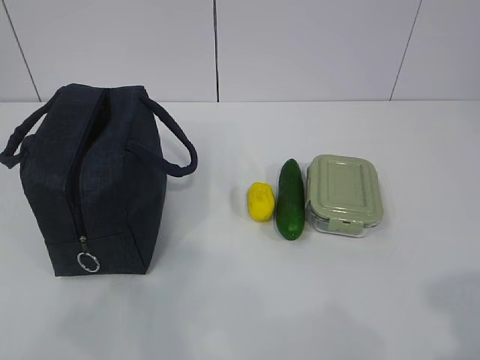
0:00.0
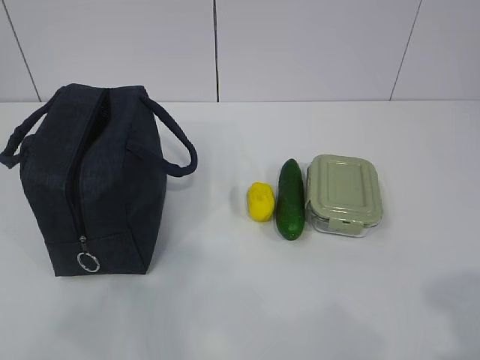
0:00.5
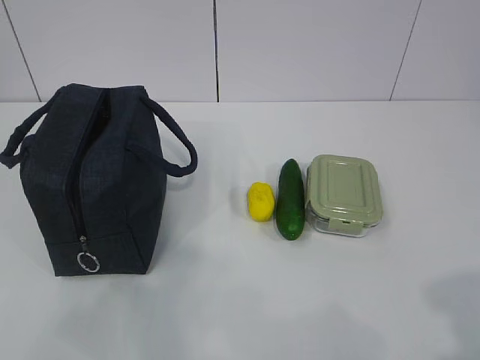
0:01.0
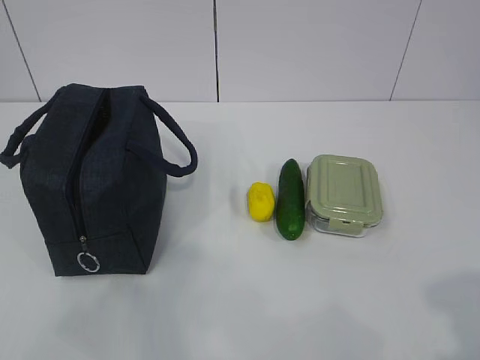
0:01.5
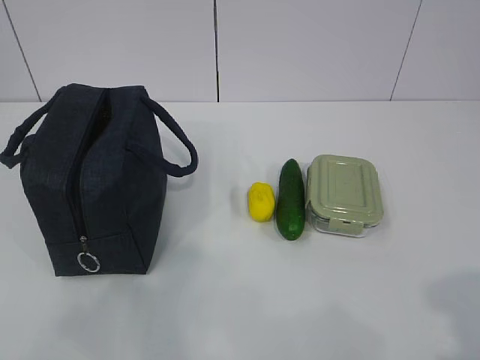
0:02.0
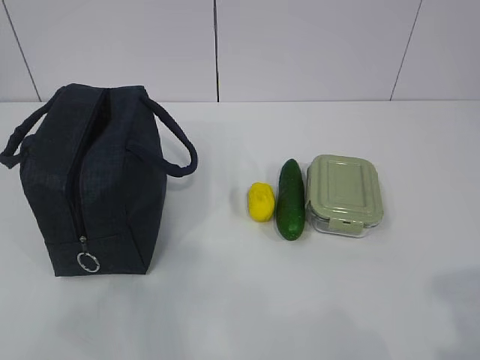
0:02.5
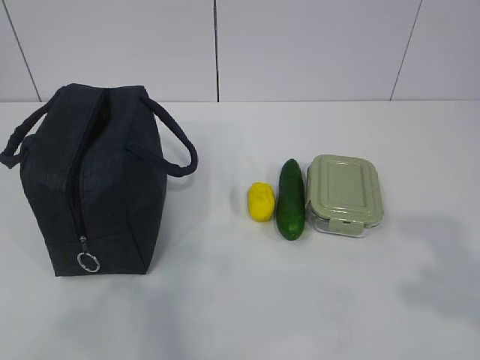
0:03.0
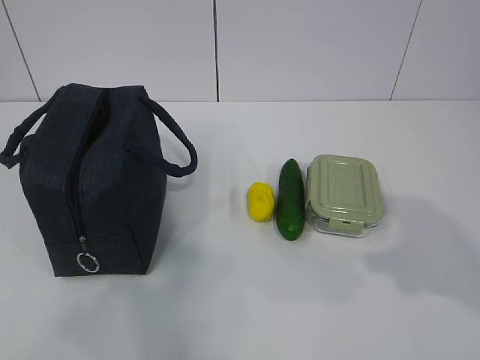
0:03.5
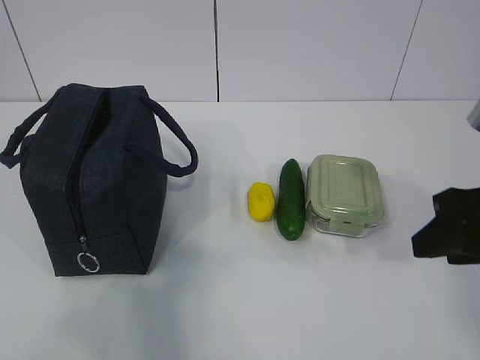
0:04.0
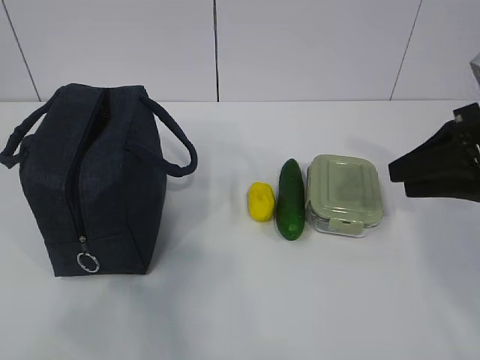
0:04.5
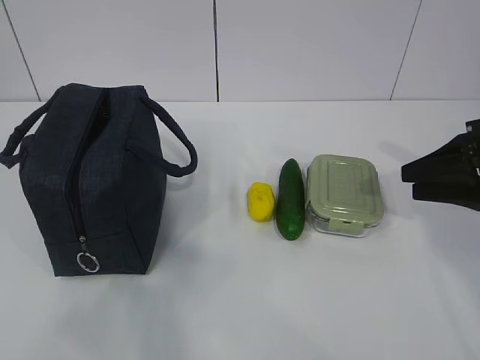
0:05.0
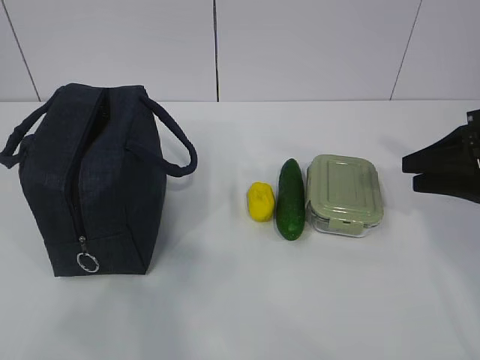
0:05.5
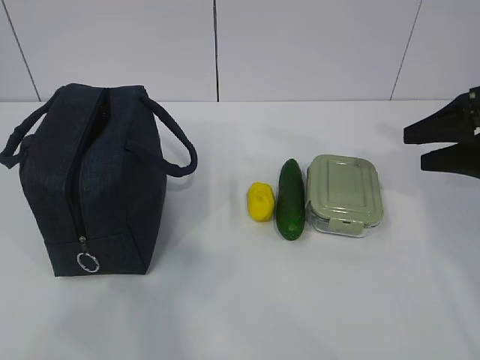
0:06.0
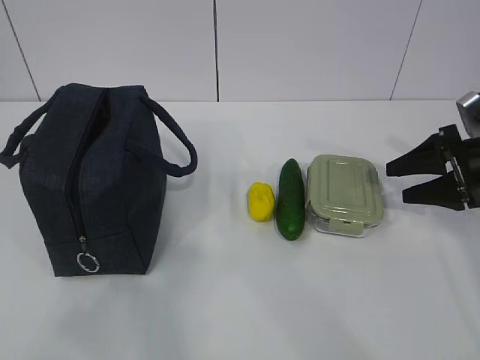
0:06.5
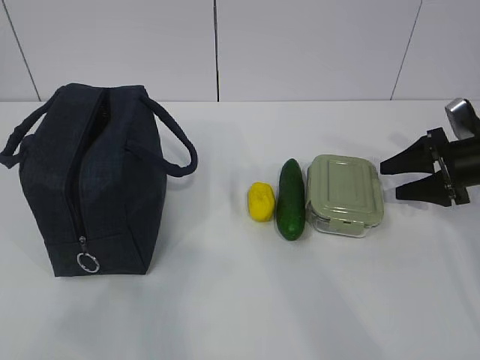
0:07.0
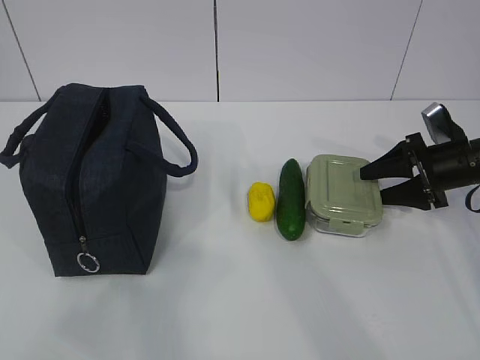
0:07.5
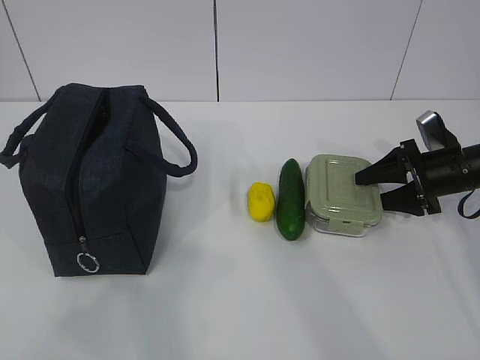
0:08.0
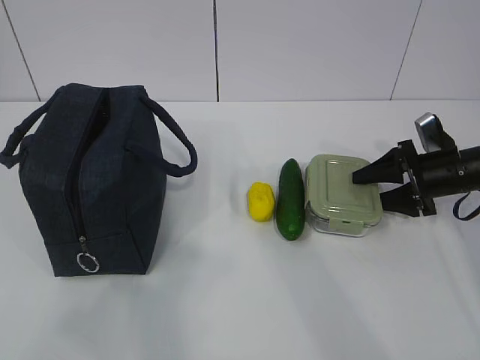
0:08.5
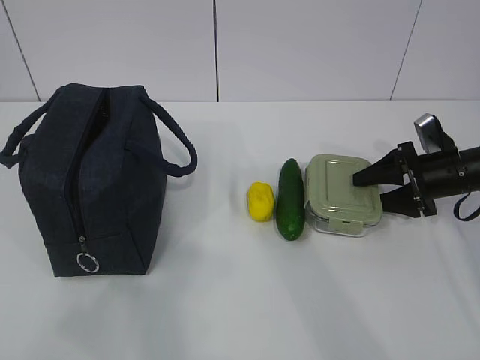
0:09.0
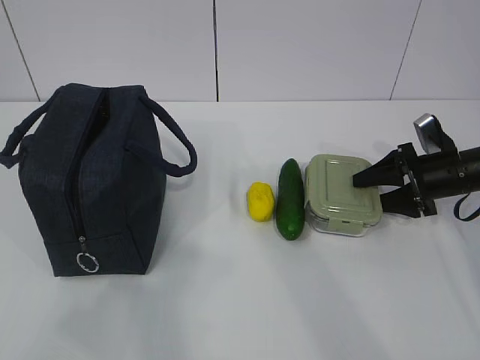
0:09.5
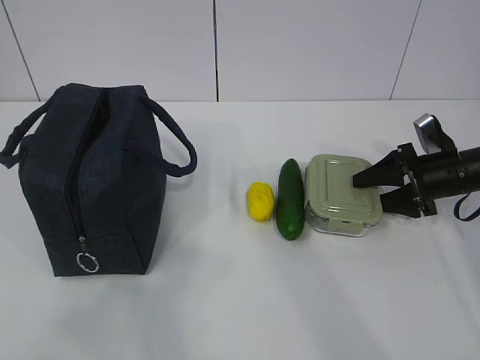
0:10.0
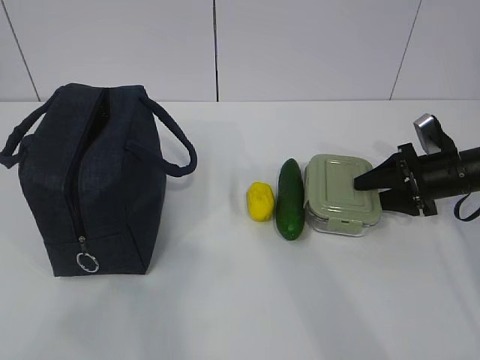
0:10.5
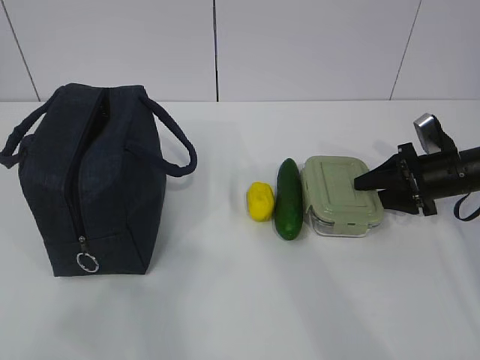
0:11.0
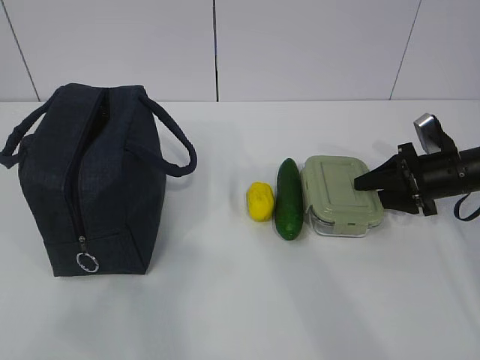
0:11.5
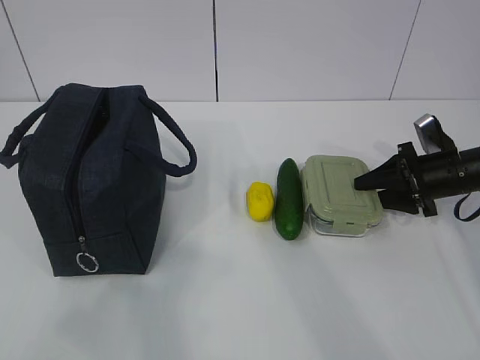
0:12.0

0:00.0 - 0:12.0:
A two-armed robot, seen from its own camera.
Step, 0:00.0 - 0:12.0: Grab the lunch box with your right hand.
0:02.0 - 0:04.0: The right gripper shifts about 20 cm forward.
0:04.0 - 0:06.0: The right gripper heads forward and to the right, covering approximately 15 cm.
0:06.0 - 0:08.0: The right gripper moves downward and forward, roughly 15 cm.
0:08.0 - 0:12.0: Both grippers stay about where they are.

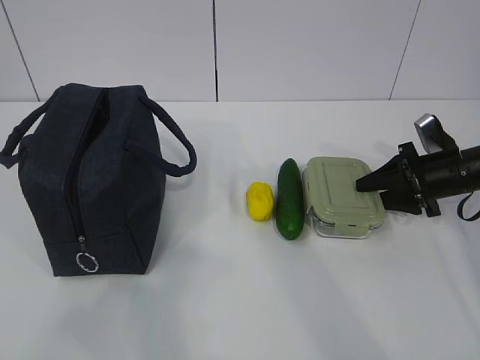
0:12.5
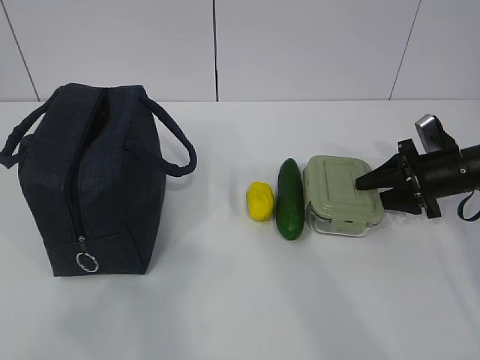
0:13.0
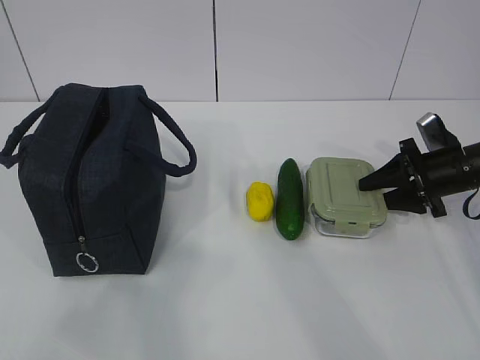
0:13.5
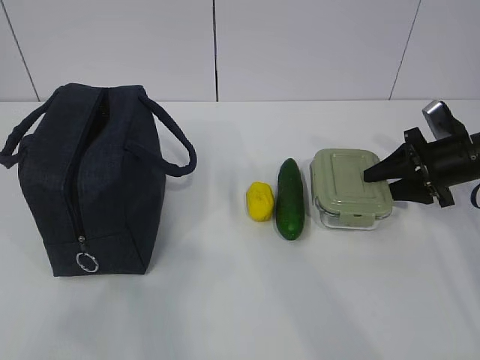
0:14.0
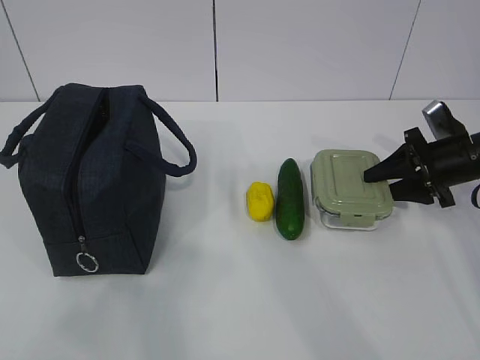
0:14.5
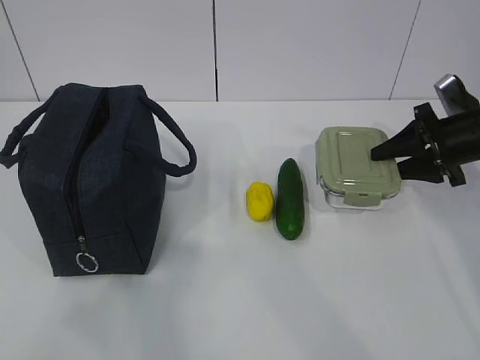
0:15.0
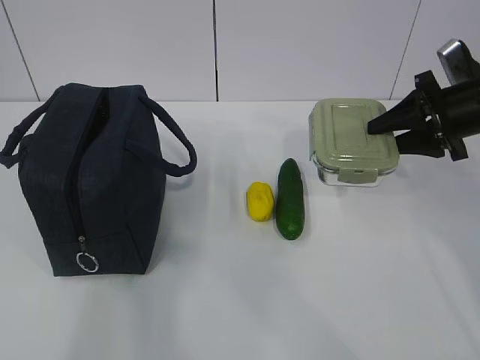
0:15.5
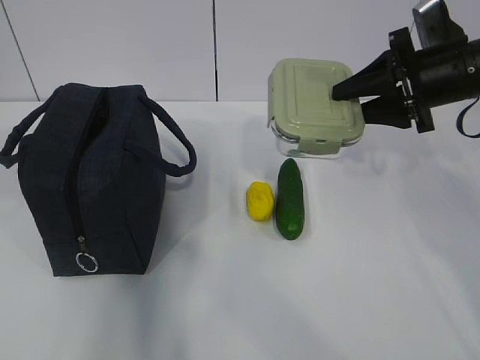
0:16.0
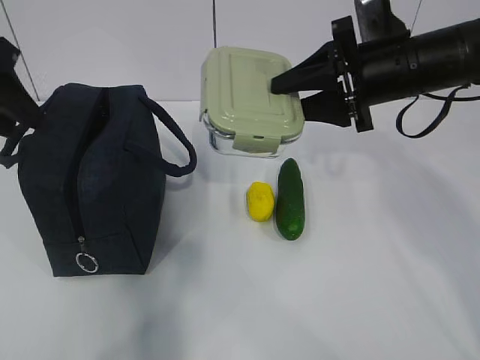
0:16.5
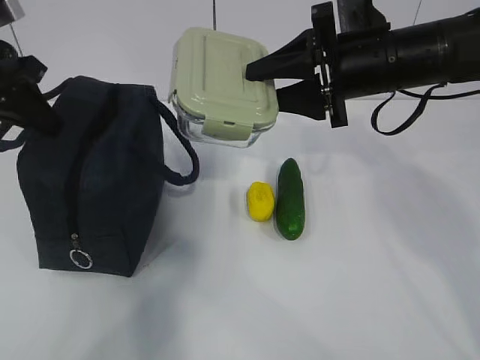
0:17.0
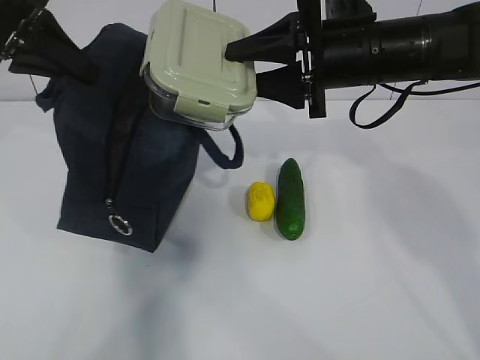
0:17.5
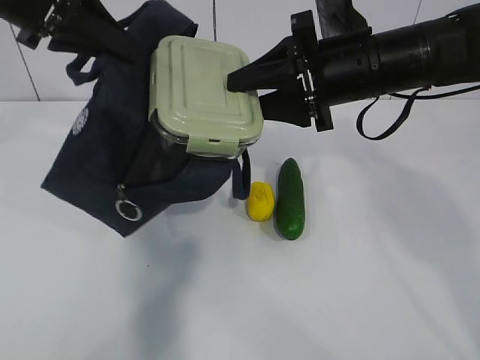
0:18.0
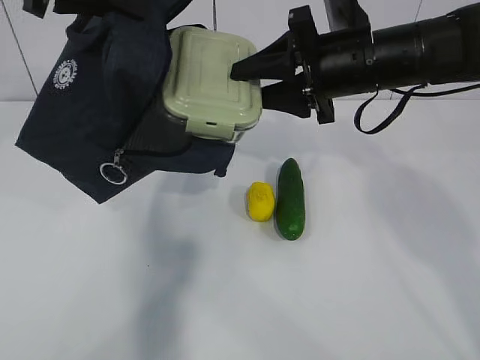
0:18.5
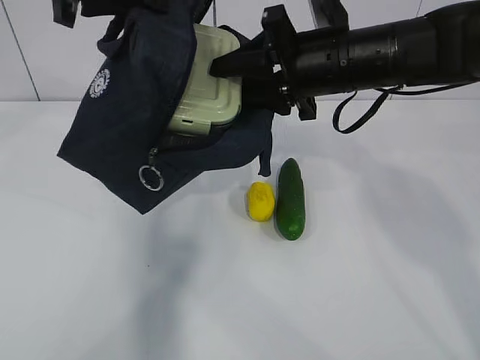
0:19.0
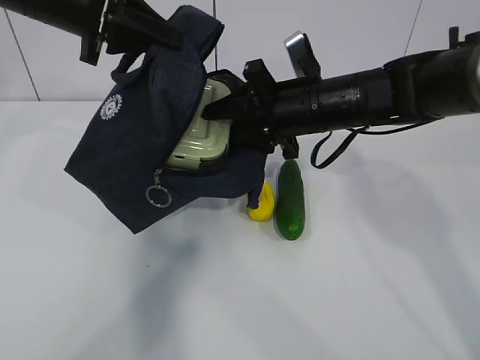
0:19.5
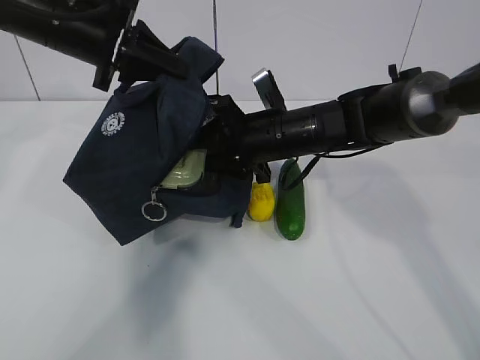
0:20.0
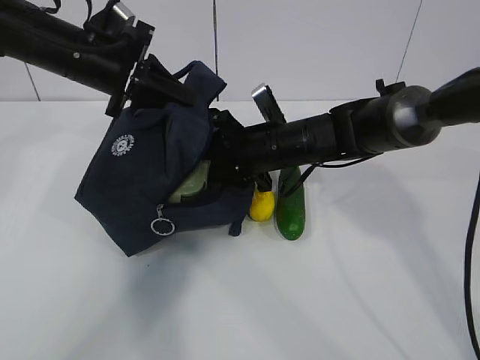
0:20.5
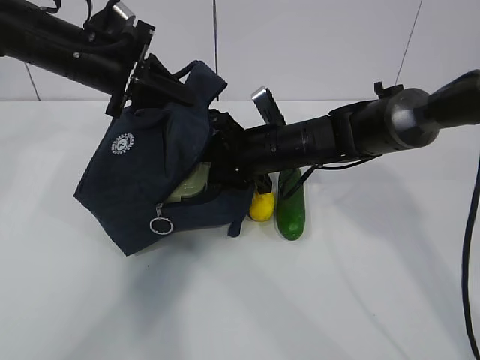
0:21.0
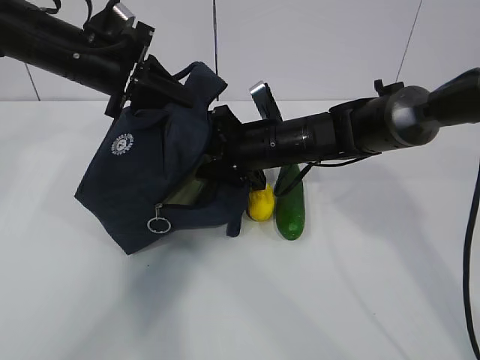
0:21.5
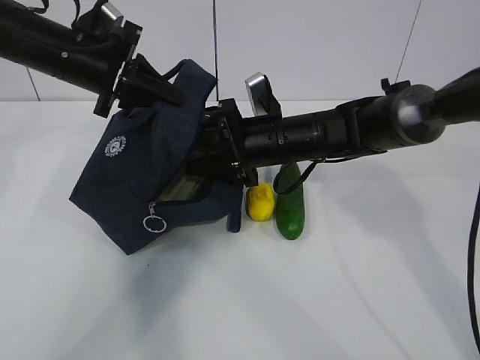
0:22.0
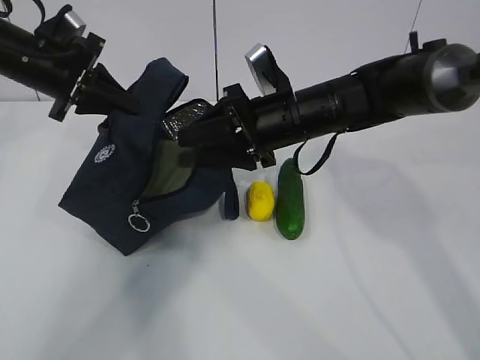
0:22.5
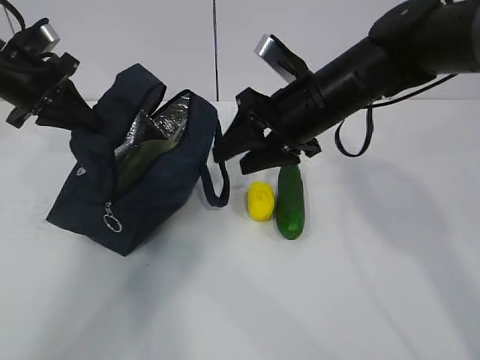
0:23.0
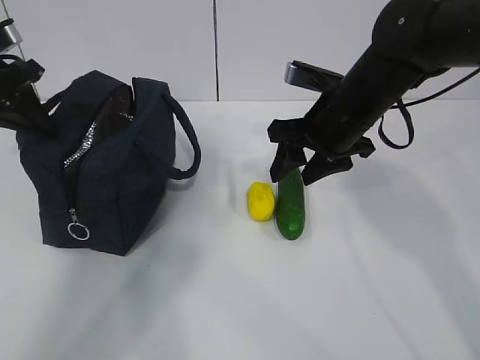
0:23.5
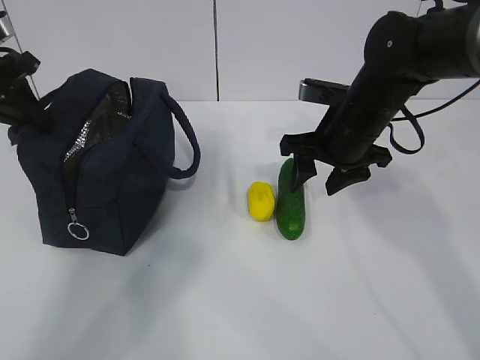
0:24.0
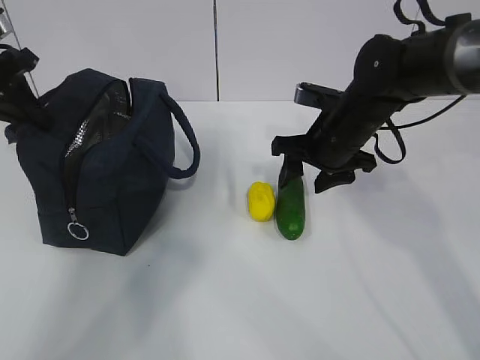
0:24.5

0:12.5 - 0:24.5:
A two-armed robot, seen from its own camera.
Step, 0:15.0 - 0:18.0: Place it into the bag with your right hand.
Step, 0:18.5 - 0:21.5: Grab the cucumber with your right hand.
Step, 0:22.0 - 0:23.5: Place it into the bag with your right hand.
0:12.5 - 0:14.5: The grippers make only small movements.
0:14.5 - 0:16.5: The right gripper travels to the left and upward by some 20 cm. The left gripper shifts about 30 cm forward.
0:16.5 - 0:18.5: The left gripper shifts some 10 cm to the right and upward, and closes.
0:18.5 - 0:20.5: The left gripper shifts about 15 cm downward and forward. The right gripper moves downward and to the left, approximately 15 cm.
0:20.5 - 0:22.5: The left gripper is displaced to the left by approximately 5 cm. The right gripper goes roughly 5 cm upward.
0:22.5 - 0:24.5: The left gripper moves to the left, about 10 cm, while the right gripper goes about 5 cm to the right.

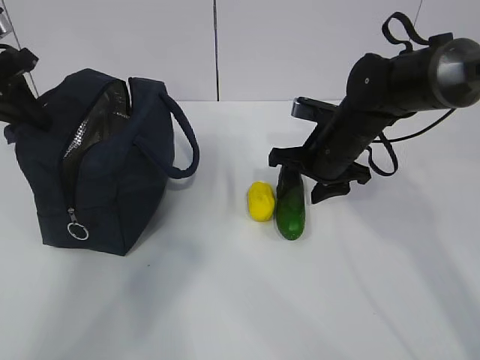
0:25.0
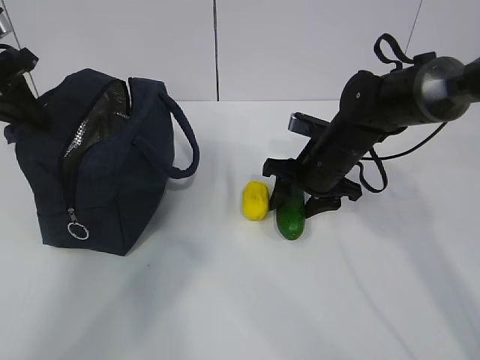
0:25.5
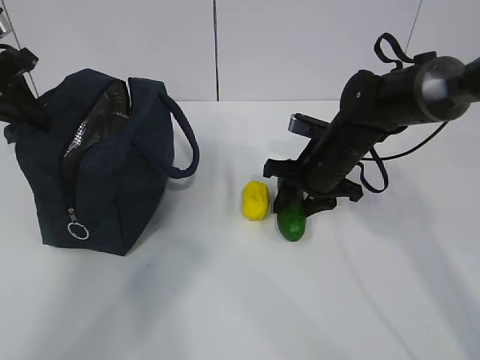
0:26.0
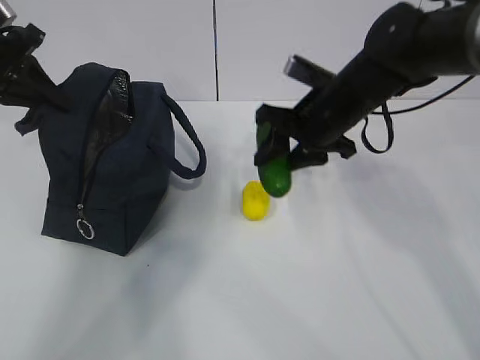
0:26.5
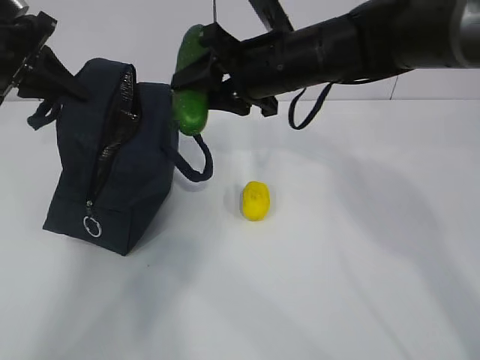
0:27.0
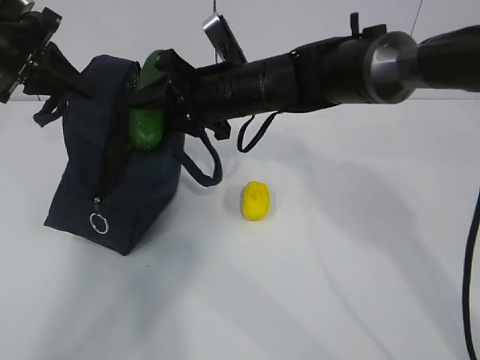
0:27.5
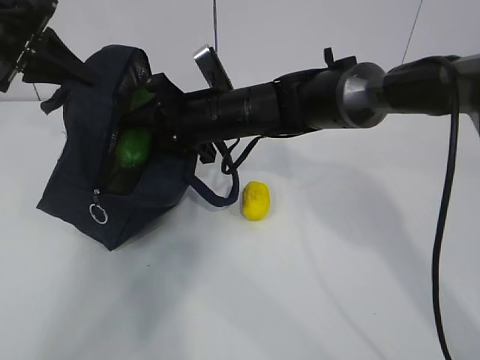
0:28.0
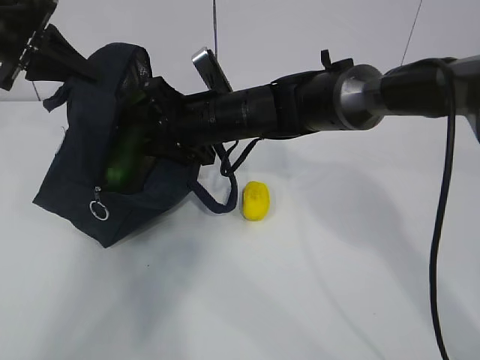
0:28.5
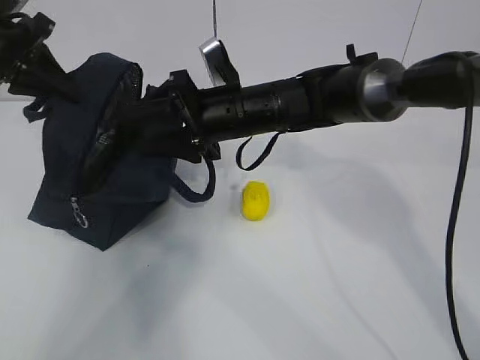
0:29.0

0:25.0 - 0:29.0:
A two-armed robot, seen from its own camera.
Step, 0:25.0 - 0:27.0: Grab the lemon with your right hand.
Step, 0:27.5 - 0:28.5: Secure the lunch bag with your left hand.
0:25.0 - 0:27.0: The right gripper is displaced upward and to the left by some 15 cm.
0:27.0 - 0:29.0: The right gripper shifts roughly 5 cm downward, and opens.
